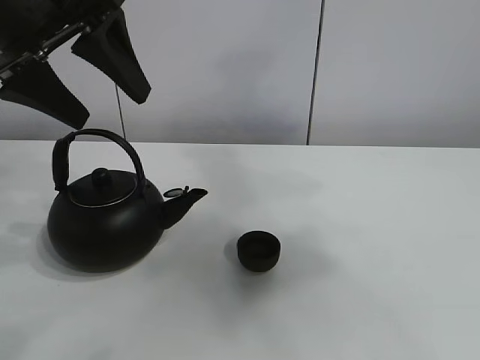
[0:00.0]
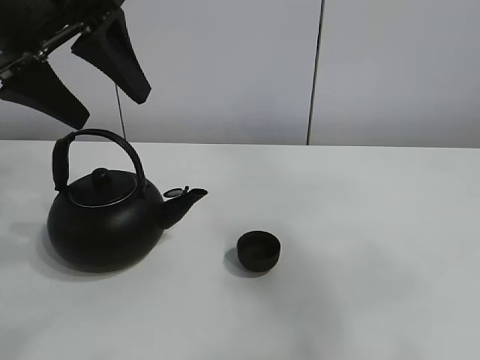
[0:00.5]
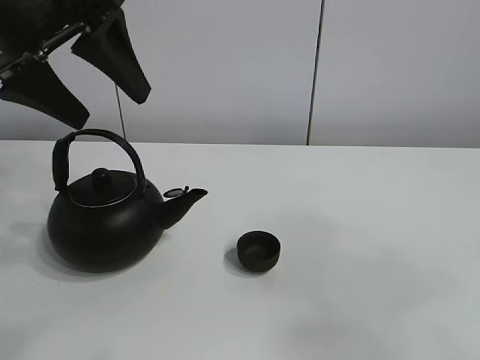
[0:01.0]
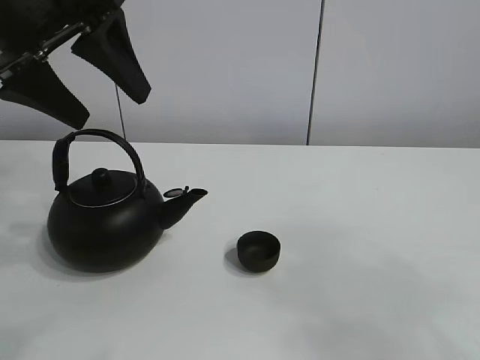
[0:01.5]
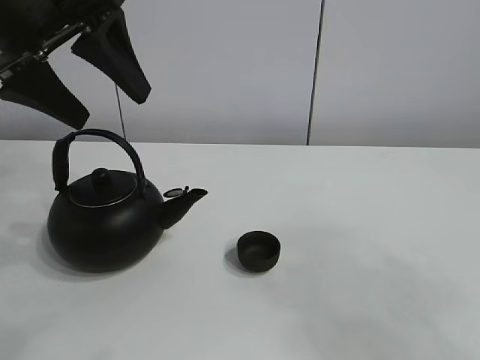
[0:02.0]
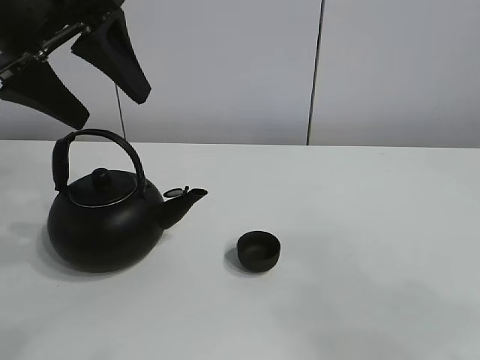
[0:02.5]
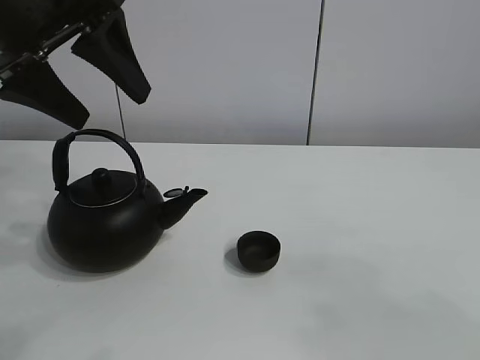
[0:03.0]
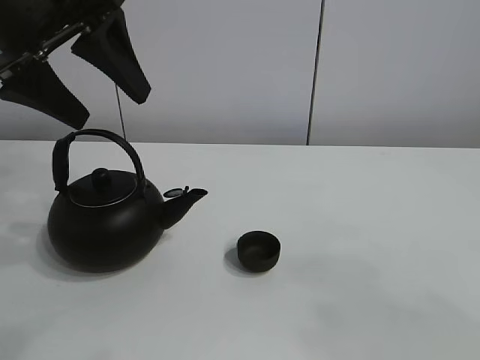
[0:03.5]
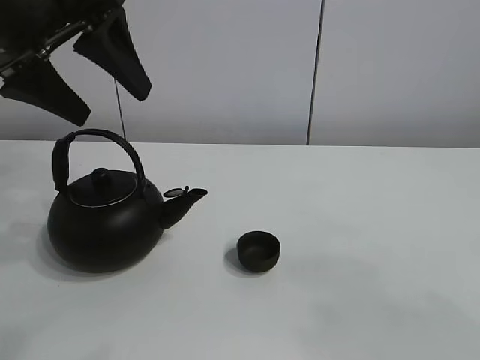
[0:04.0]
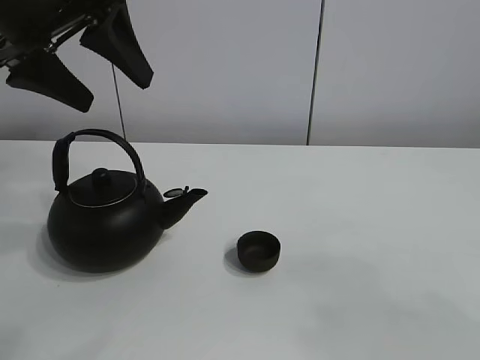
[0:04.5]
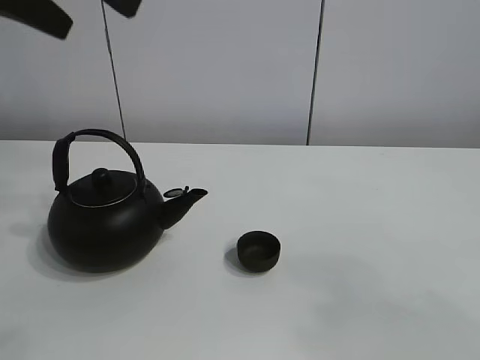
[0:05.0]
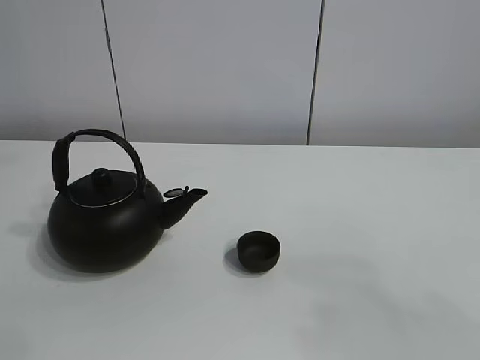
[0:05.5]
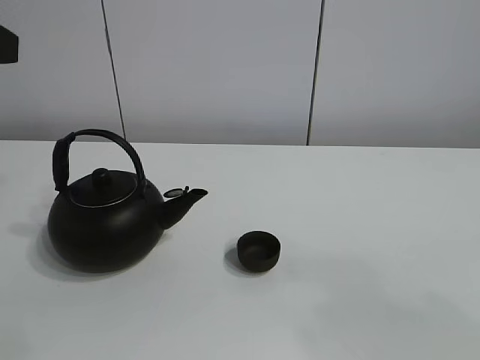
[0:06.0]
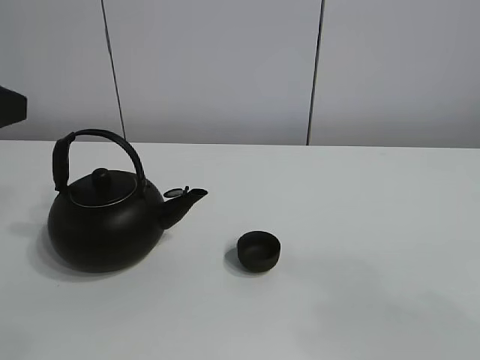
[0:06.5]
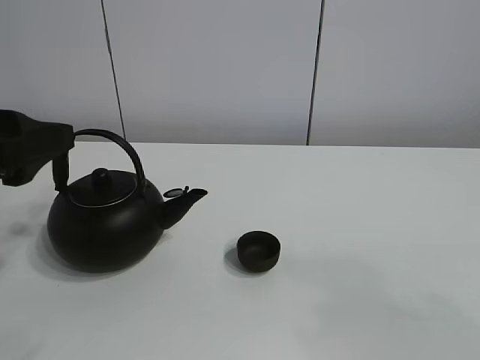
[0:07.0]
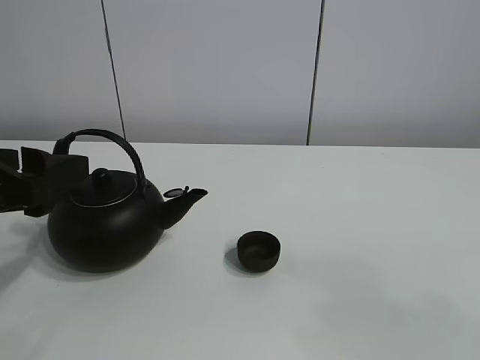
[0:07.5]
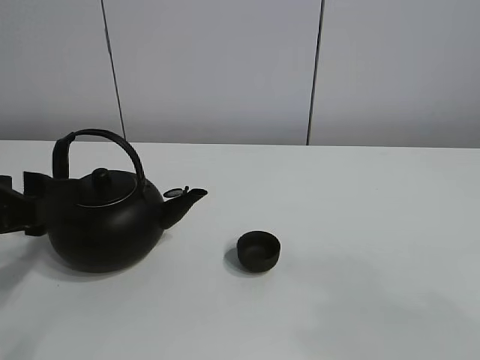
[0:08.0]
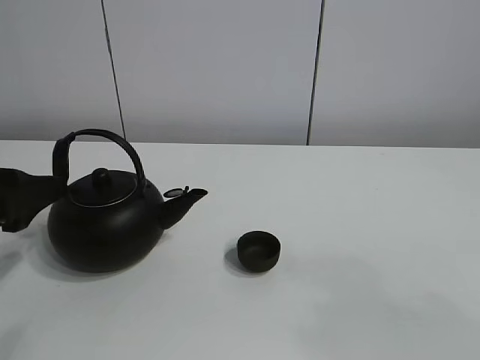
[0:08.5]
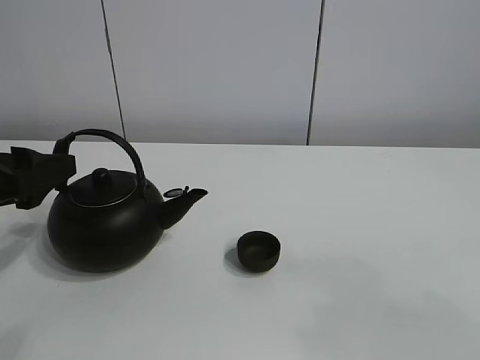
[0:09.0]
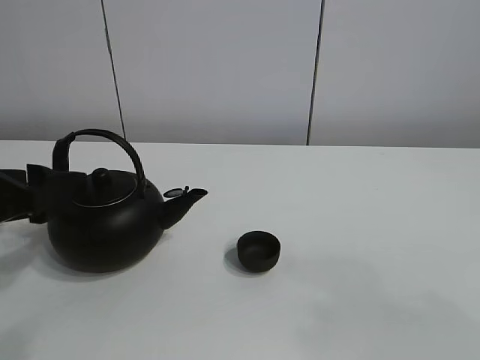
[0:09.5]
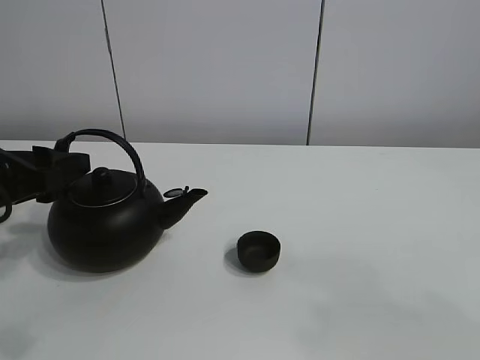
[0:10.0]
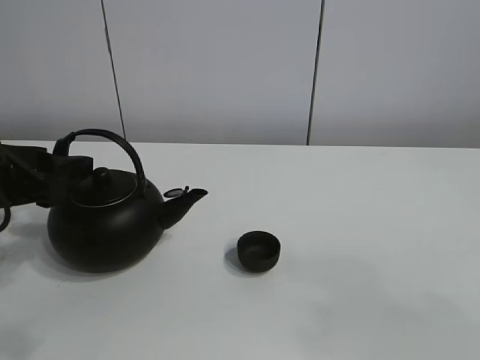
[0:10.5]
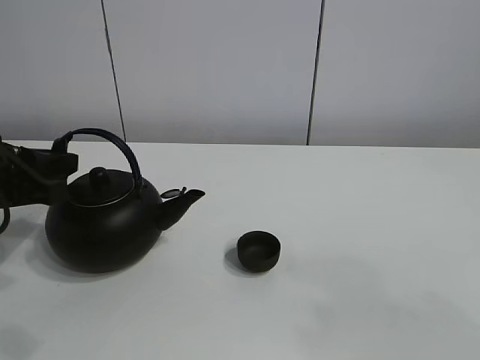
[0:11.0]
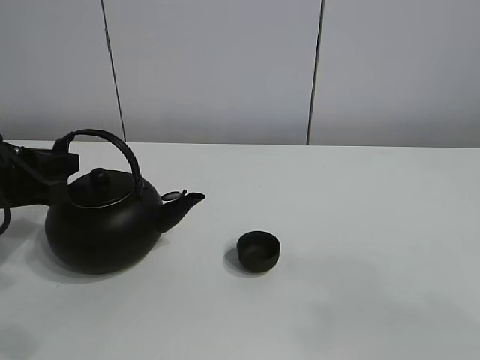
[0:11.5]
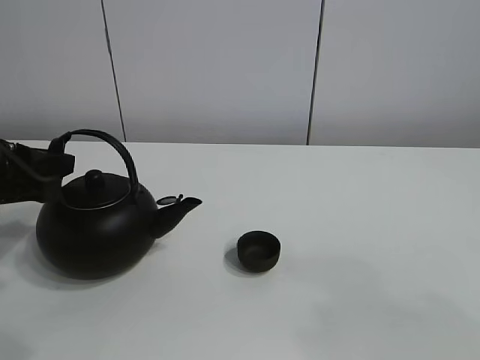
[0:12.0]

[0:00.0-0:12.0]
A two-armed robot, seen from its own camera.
Task of the whole recording: pour tea into the teacup.
0:00.0 to 0:02.0: The right gripper moves downward and backward, approximately 25 cm.
0:02.0 to 0:04.0: There are only small adjustments of the grippers.
0:04.0 to 0:06.0: The left gripper is displaced backward and to the left by some 15 cm.
0:06.0 to 0:08.0: The left gripper shifts roughly 15 cm downward.
0:08.0 to 0:10.0: The left gripper moves forward, approximately 5 cm.
0:10.0 to 0:12.0: The left gripper closes.

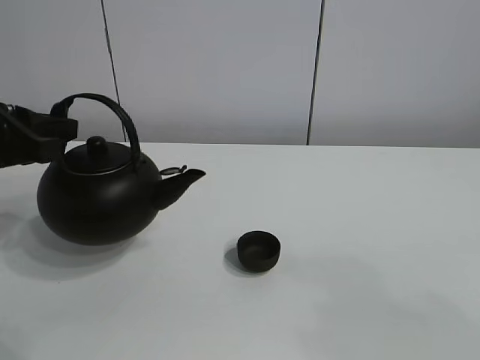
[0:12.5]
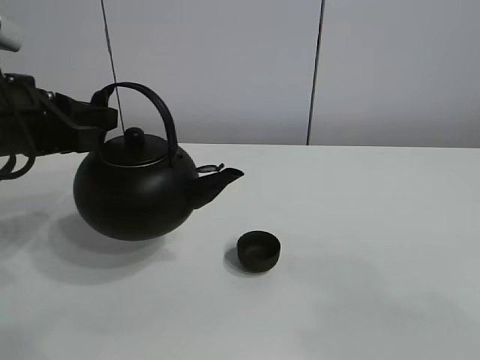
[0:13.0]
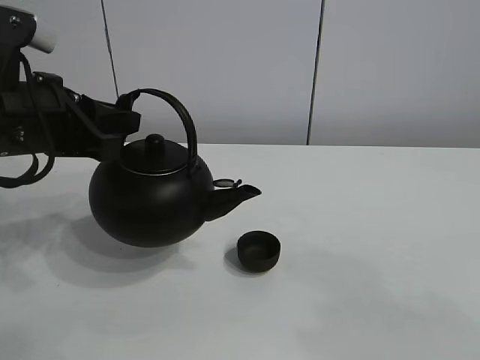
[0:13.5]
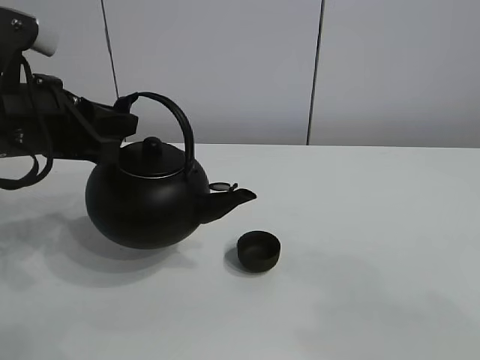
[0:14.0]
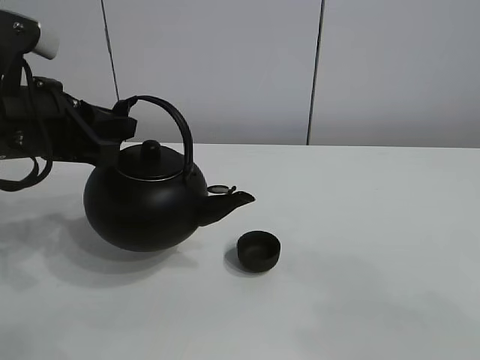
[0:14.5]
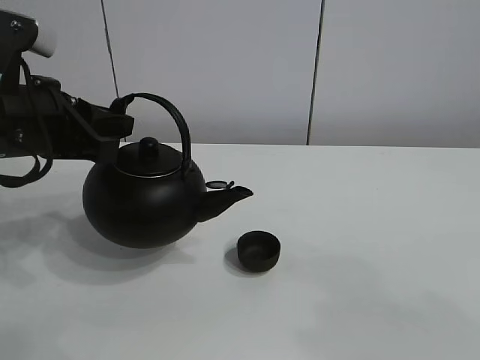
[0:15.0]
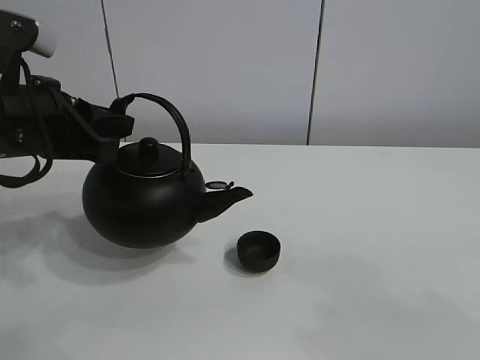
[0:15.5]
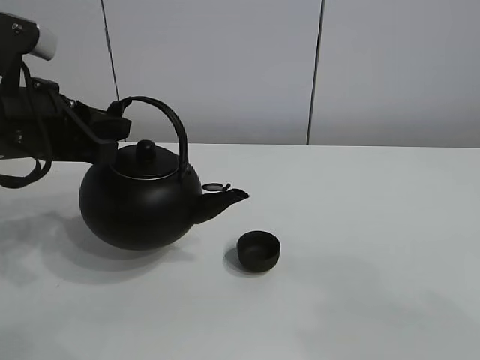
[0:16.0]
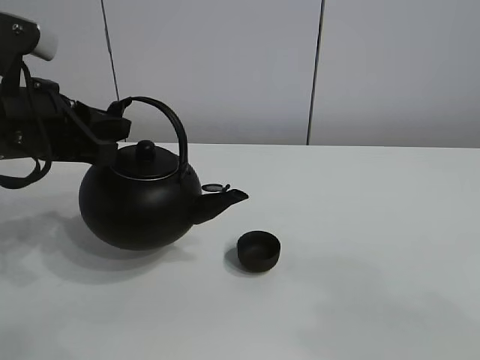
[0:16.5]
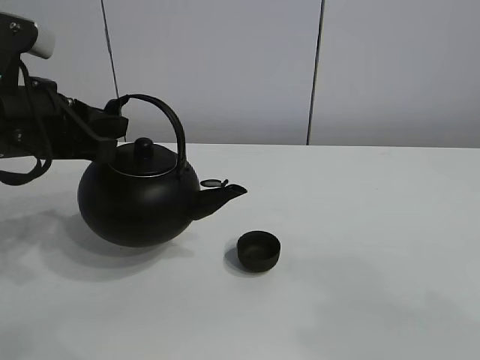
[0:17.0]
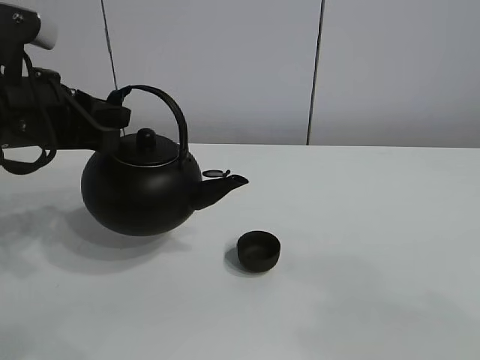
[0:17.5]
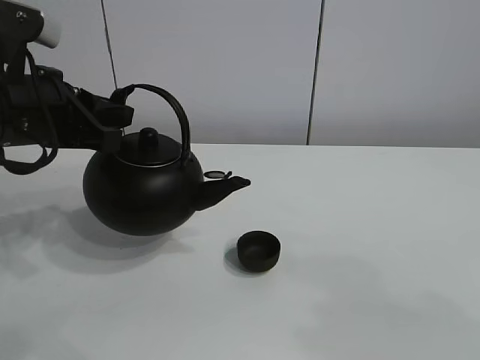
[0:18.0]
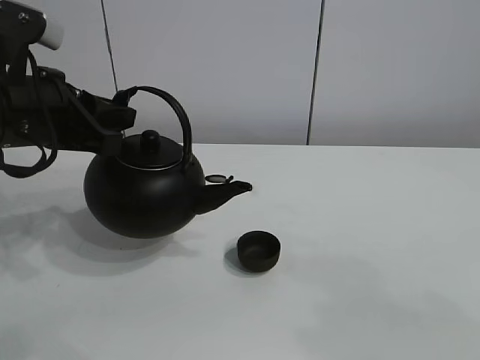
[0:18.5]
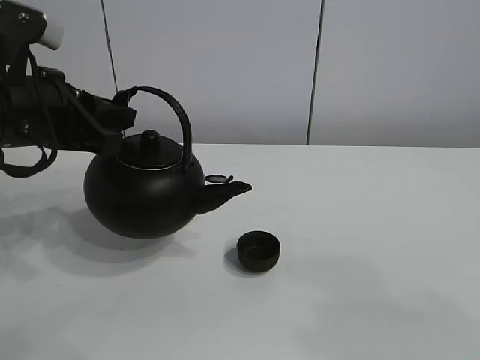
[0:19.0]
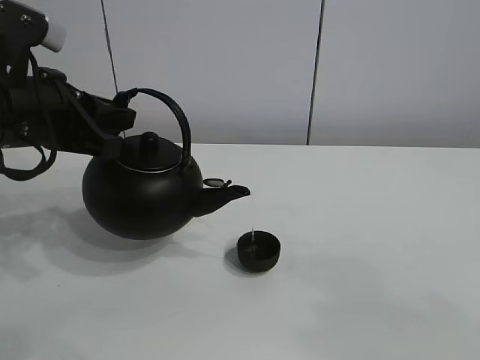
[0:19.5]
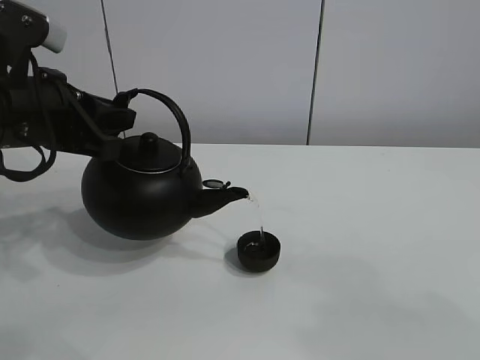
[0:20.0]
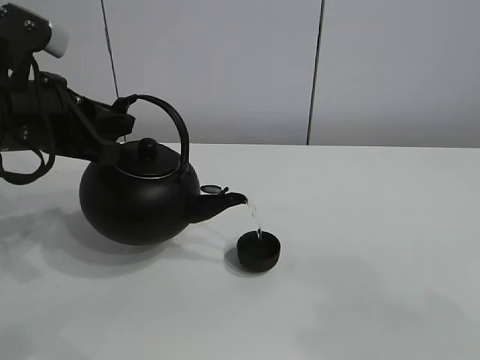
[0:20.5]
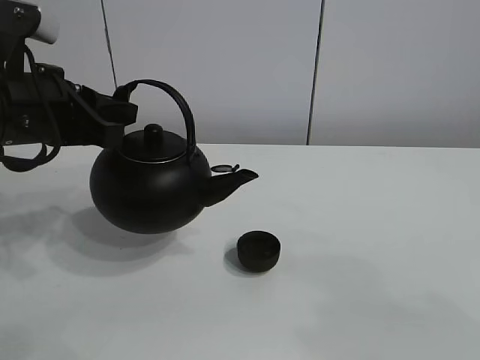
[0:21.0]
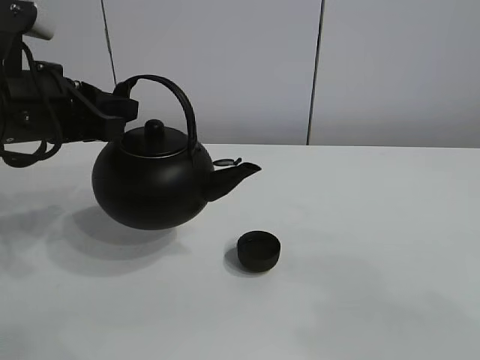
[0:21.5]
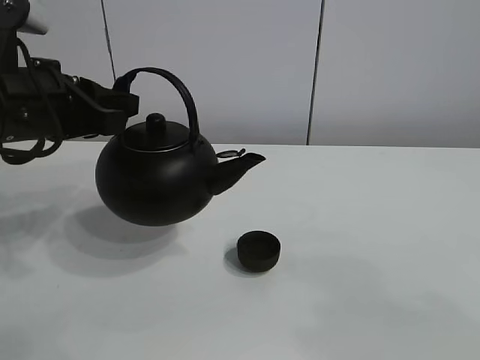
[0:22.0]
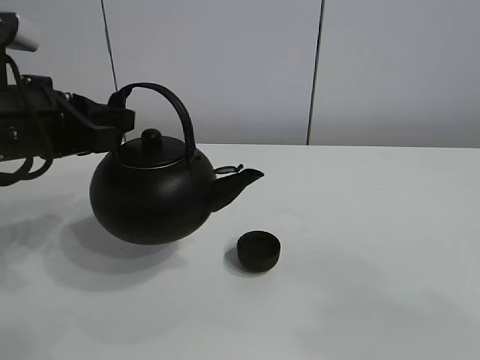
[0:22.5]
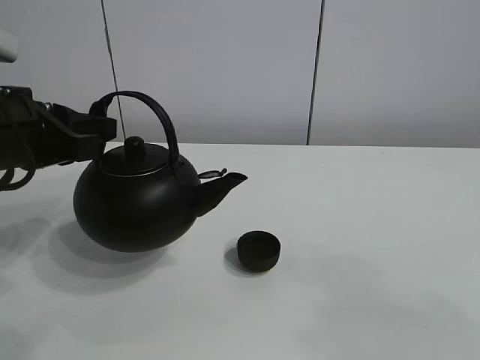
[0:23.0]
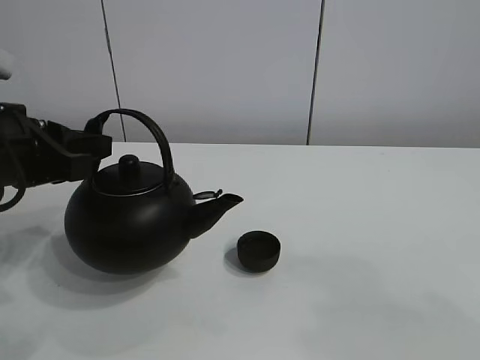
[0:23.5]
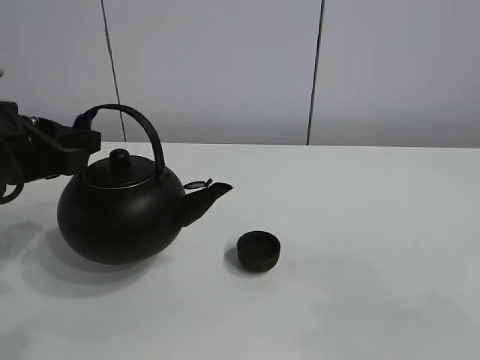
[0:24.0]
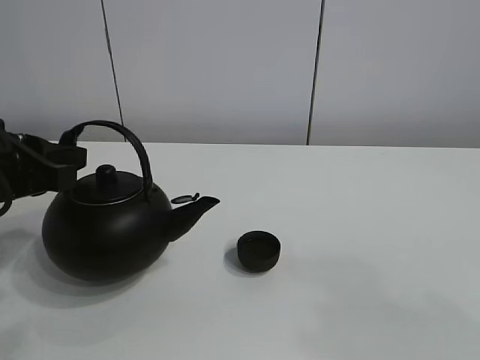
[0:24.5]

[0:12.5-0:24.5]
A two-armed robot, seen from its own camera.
Task of the whole recording: pour tea into the teacup.
Step, 0:12.5 to 0:20.5: Pour tea into the teacup with the left gripper.
0:12.5 to 0:14.5: The left gripper is displaced to the right by roughly 5 cm.
0:14.5 to 0:18.5: The two grippers keep their place.
0:18.5 to 0:20.5: Both grippers stay about where they are.
0:20.5 to 0:24.5: The grippers stay close to where they were, moving slightly.

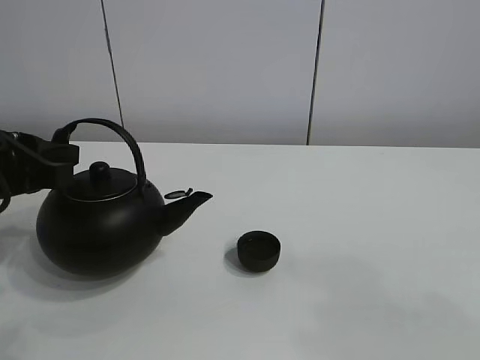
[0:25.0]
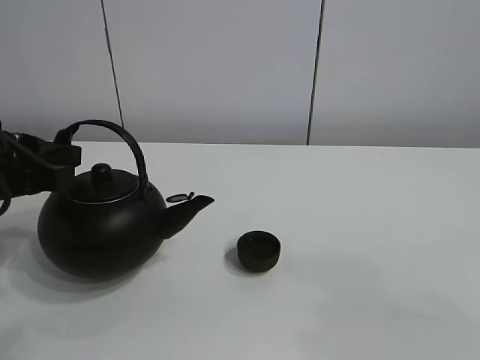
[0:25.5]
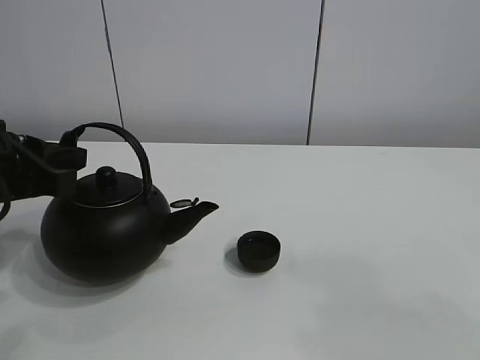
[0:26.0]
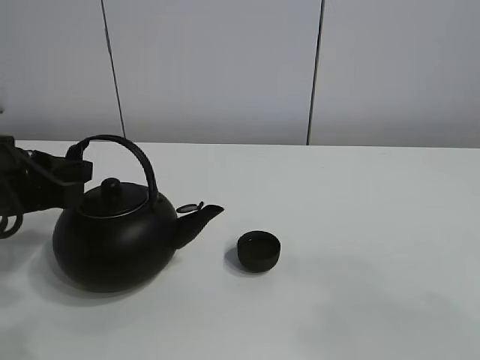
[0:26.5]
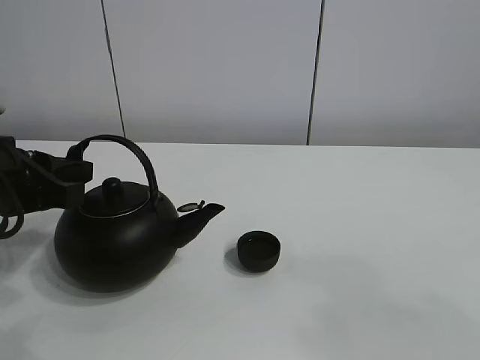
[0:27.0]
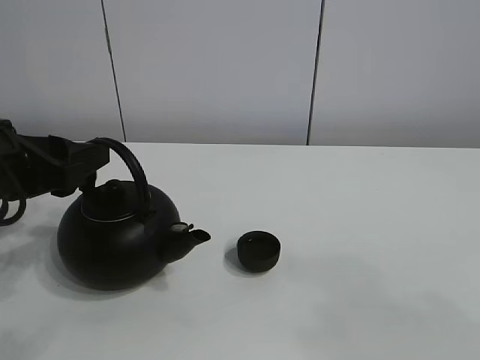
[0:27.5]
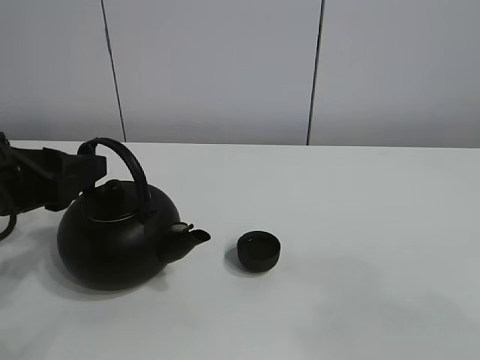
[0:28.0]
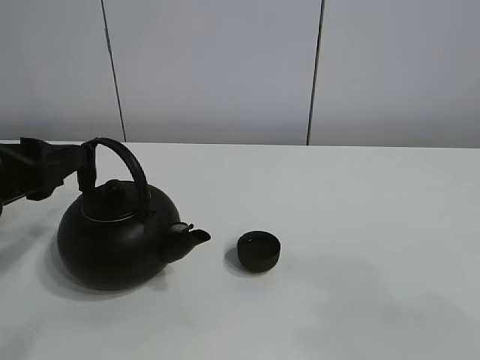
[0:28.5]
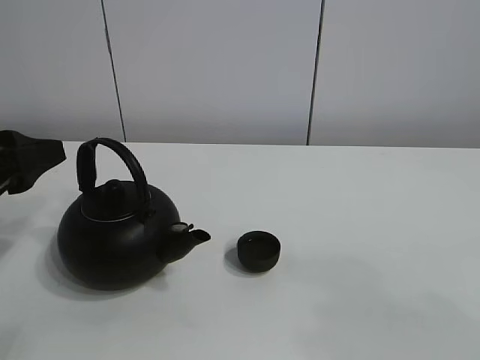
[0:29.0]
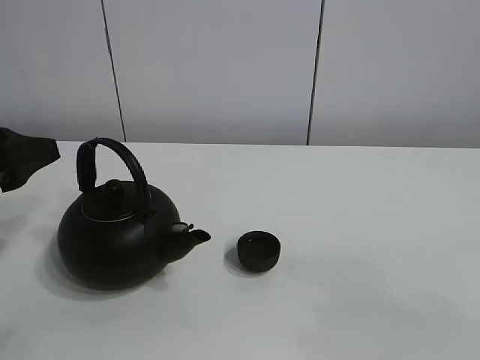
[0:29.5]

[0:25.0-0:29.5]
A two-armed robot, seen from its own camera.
Task of the whole recording: pour tea into the teacup.
0:25.0 to 0:27.0: The grippers make only small movements.
0:27.0 to 0:29.5: The left gripper opens up.
